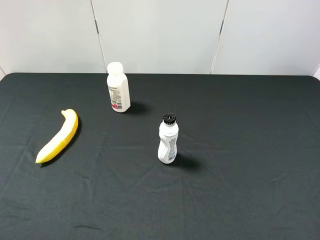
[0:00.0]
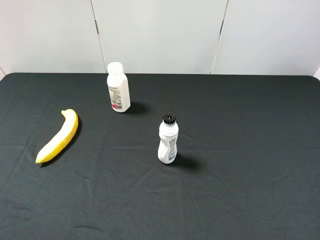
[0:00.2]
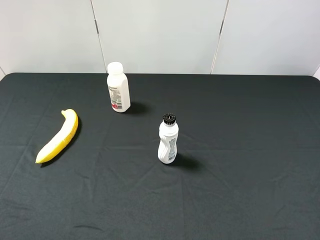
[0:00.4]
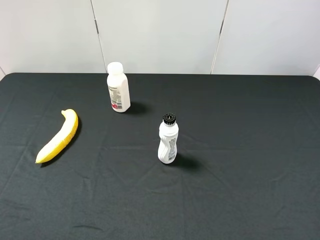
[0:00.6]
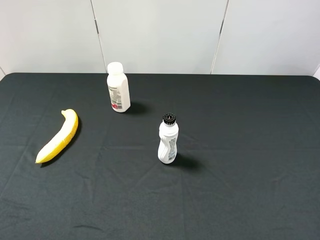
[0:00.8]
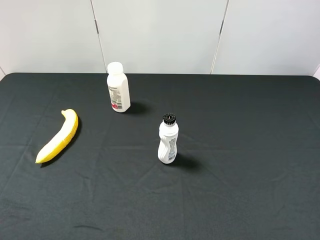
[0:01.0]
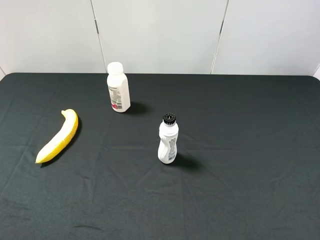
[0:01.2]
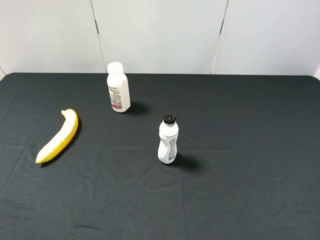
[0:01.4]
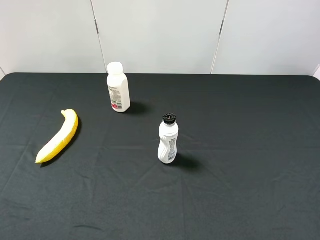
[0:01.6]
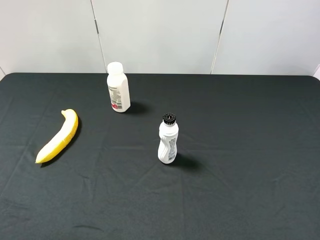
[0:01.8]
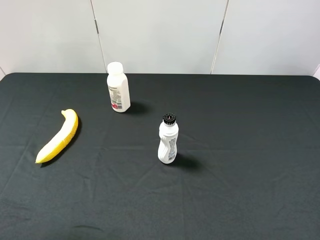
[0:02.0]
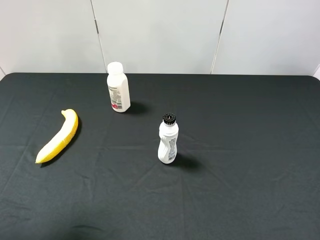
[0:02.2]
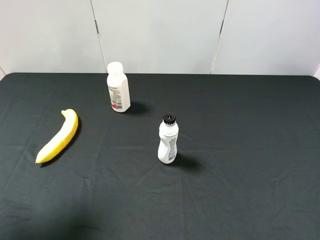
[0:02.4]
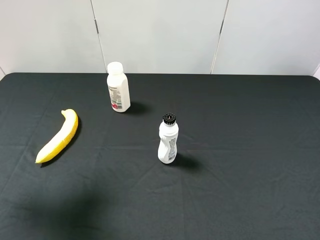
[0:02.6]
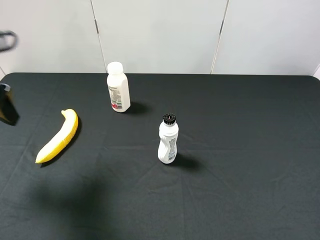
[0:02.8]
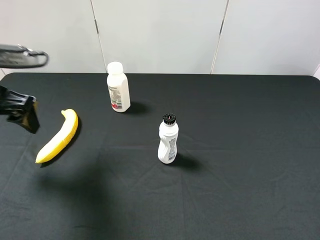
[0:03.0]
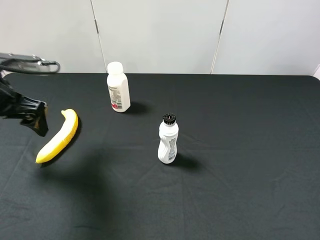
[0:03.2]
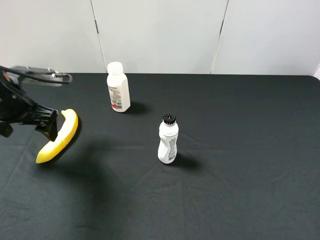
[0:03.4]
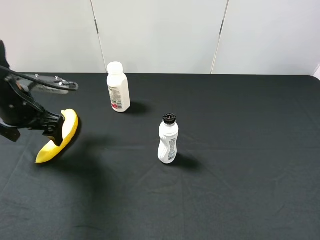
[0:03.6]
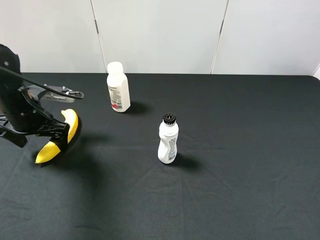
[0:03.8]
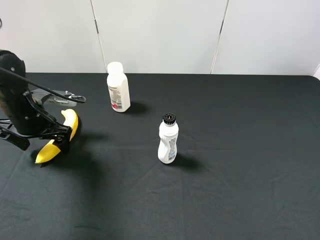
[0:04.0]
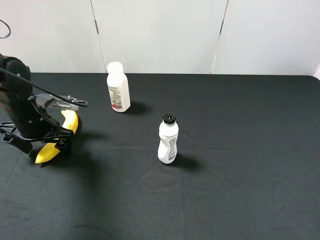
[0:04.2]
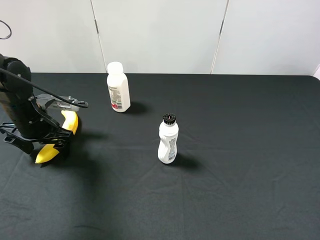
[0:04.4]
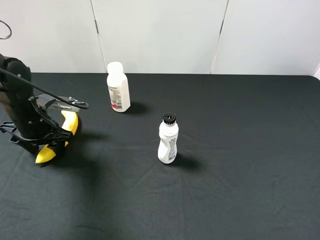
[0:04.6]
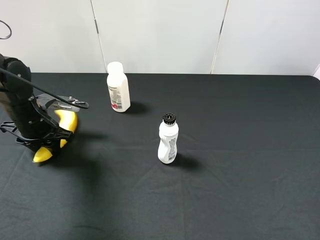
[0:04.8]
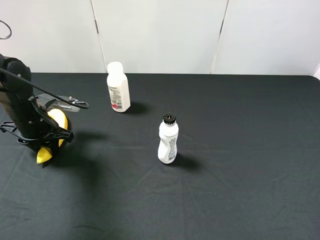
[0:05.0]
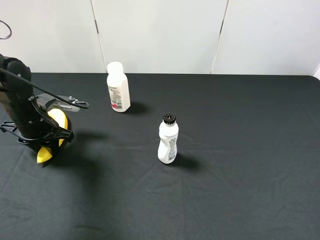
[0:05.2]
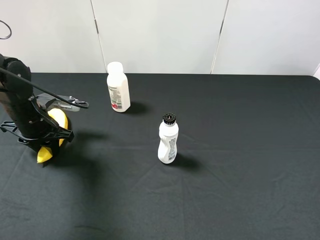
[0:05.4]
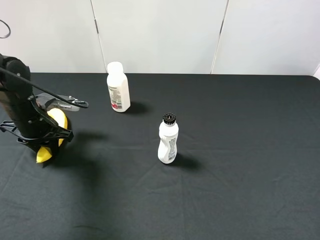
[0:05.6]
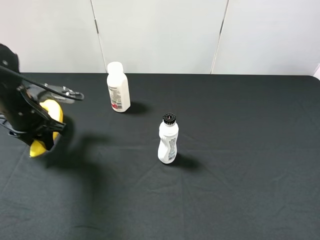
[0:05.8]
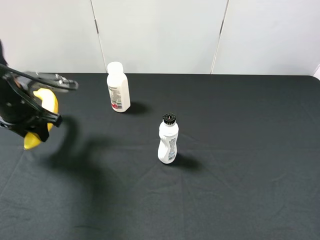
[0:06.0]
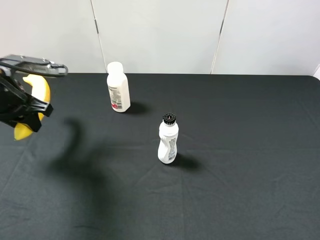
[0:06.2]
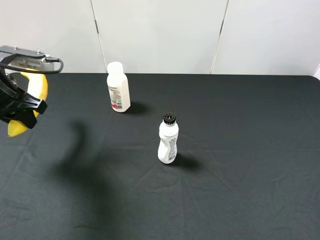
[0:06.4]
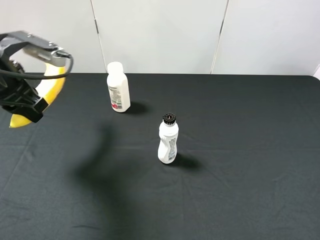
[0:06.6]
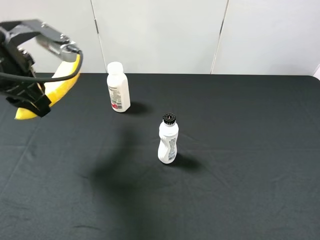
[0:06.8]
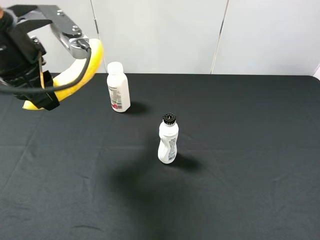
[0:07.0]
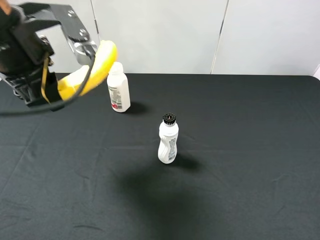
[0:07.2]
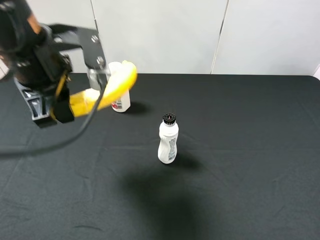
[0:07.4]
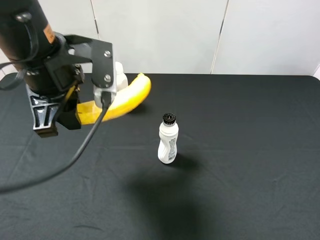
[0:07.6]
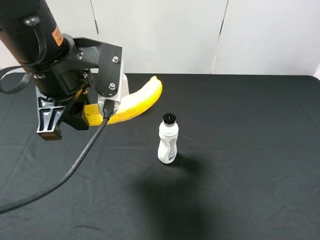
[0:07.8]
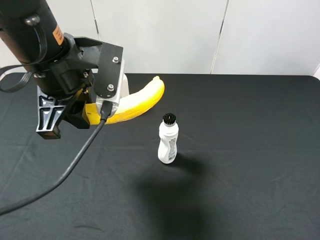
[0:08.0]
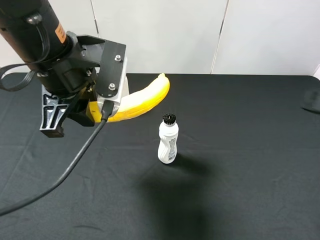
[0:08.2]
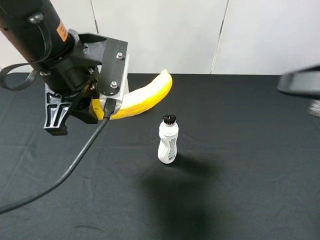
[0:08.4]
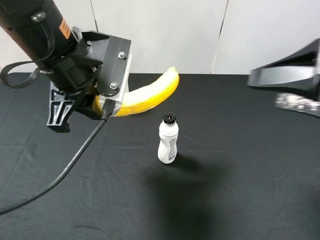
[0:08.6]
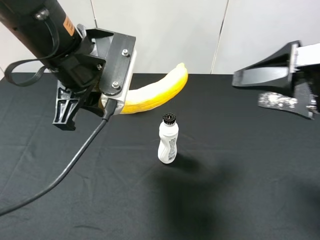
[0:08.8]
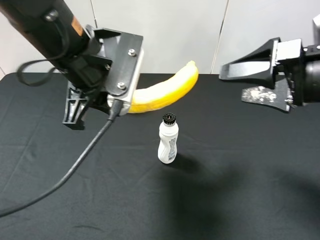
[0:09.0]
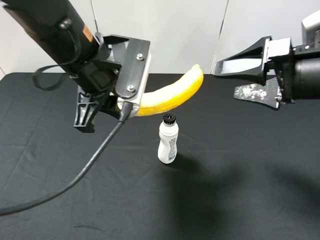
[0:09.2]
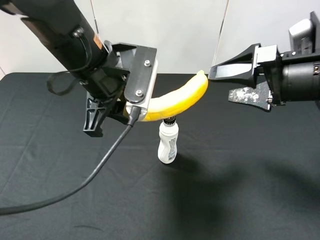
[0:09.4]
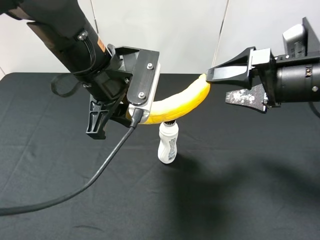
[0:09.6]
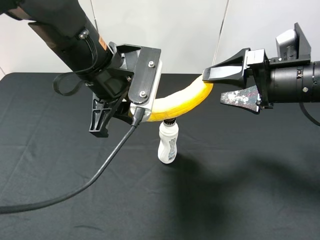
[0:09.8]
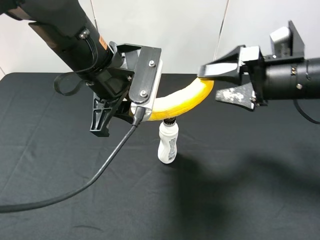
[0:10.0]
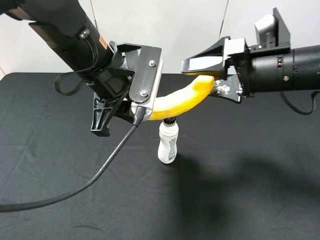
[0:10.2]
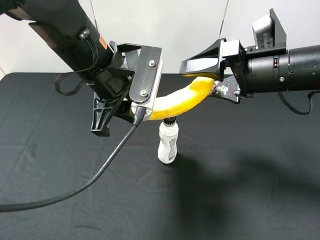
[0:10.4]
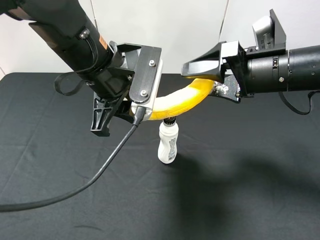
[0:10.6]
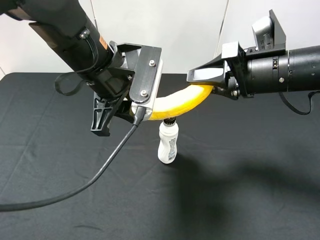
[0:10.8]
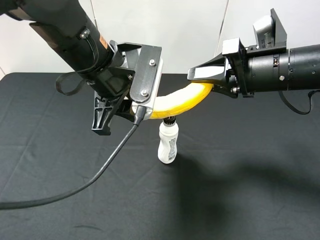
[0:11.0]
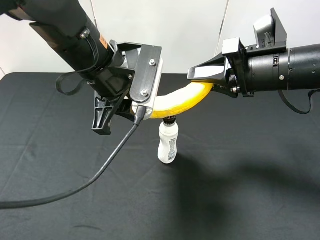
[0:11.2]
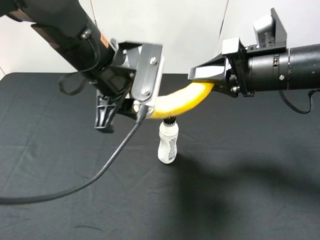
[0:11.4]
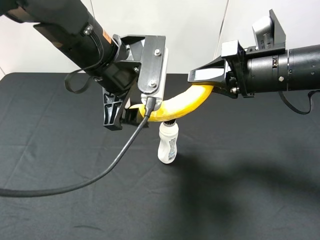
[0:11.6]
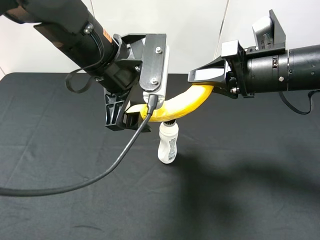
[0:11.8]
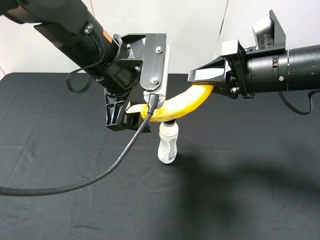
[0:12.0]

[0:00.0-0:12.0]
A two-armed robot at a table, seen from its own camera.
Task of the whole recording: use the left gripper to pick up the item and transfer it from the left gripper to the right gripper.
0:01.6 to 0:03.0: The left gripper is displaced forward by some 25 cm.
0:03.0 to 0:04.4: The left gripper shifts about 15 cm downward and forward.
0:04.4 to 0:06.0: The left gripper shifts approximately 5 cm upward, and closes up.
0:06.0 to 0:07.6: The left gripper goes roughly 20 cm to the right, upward and backward.
0:07.6 to 0:09.0: The right gripper travels forward and to the left by about 20 cm.
0:09.0 to 0:10.4: The right gripper is displaced forward by about 5 cm.
0:10.4 to 0:12.0: The left gripper opens its fingers. Meanwhile the right gripper closes its fingers.

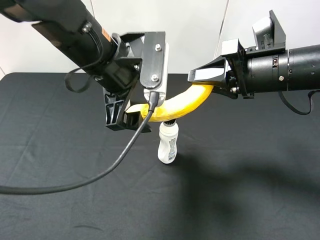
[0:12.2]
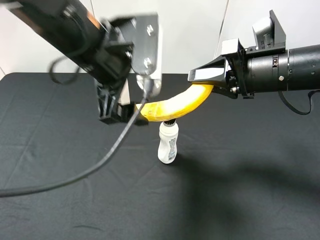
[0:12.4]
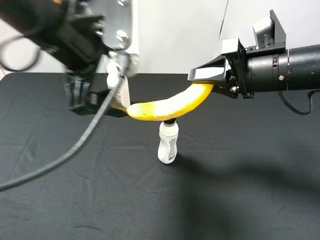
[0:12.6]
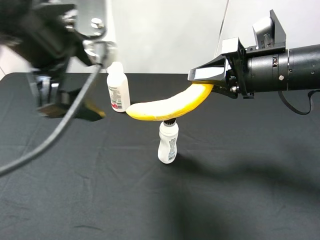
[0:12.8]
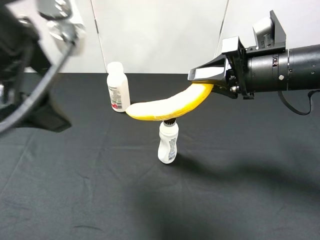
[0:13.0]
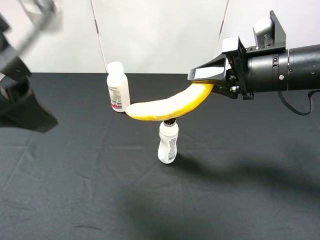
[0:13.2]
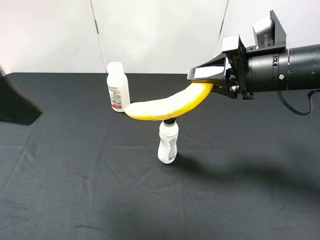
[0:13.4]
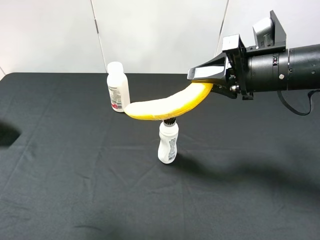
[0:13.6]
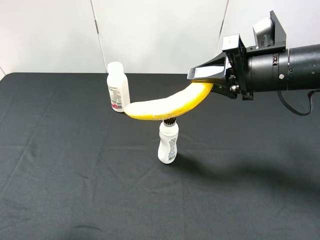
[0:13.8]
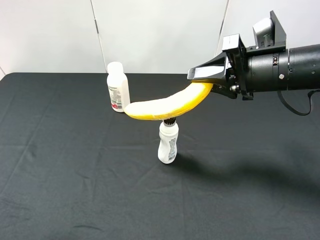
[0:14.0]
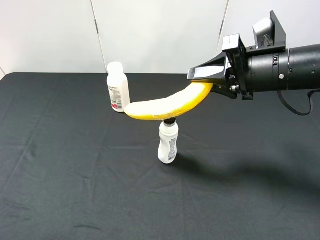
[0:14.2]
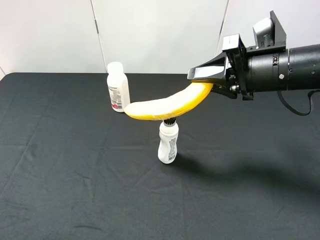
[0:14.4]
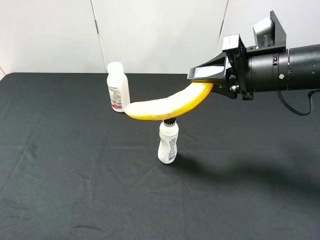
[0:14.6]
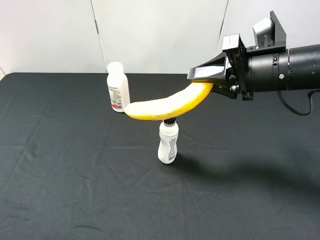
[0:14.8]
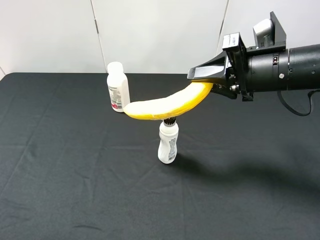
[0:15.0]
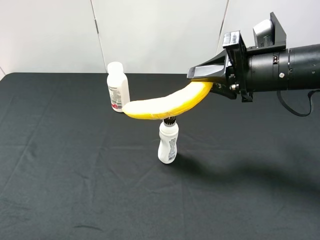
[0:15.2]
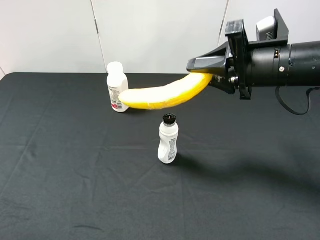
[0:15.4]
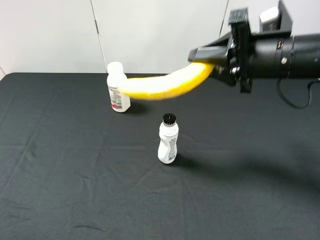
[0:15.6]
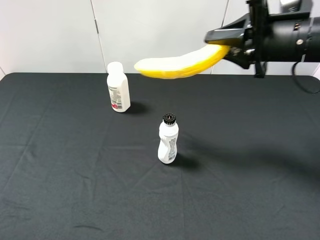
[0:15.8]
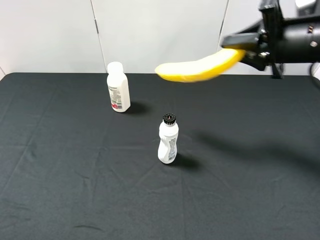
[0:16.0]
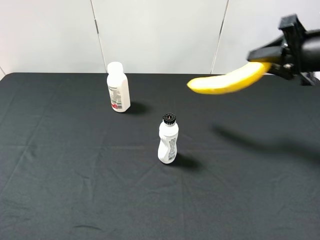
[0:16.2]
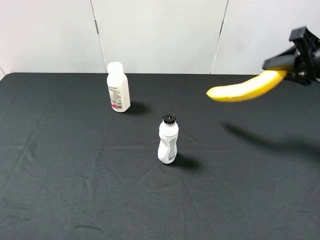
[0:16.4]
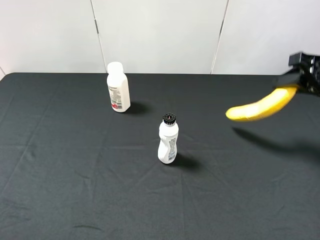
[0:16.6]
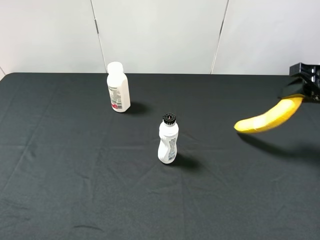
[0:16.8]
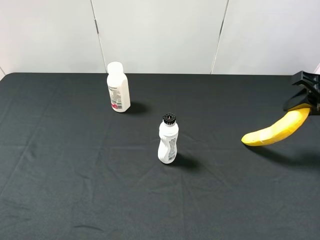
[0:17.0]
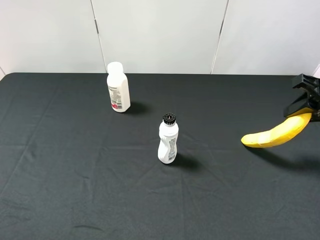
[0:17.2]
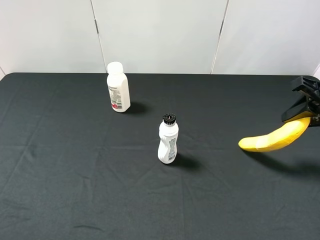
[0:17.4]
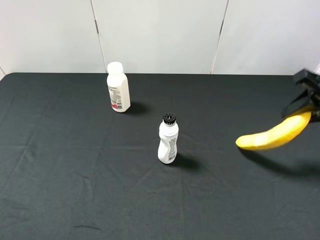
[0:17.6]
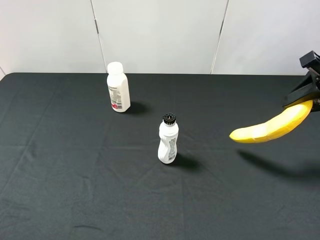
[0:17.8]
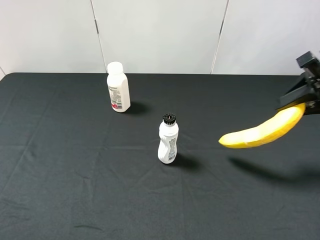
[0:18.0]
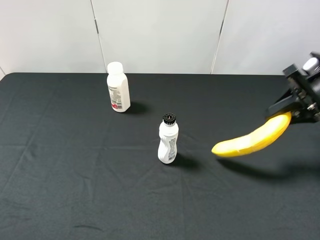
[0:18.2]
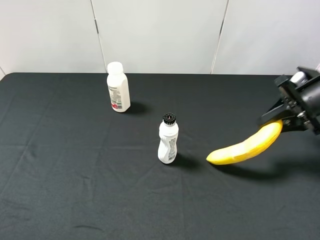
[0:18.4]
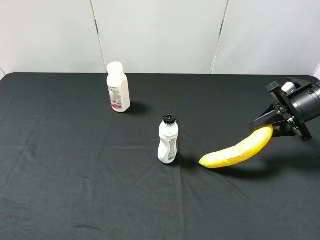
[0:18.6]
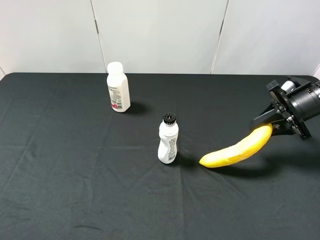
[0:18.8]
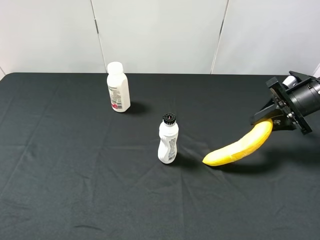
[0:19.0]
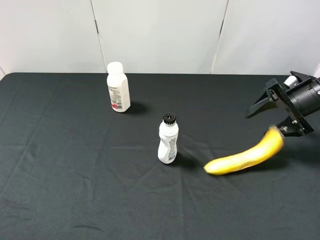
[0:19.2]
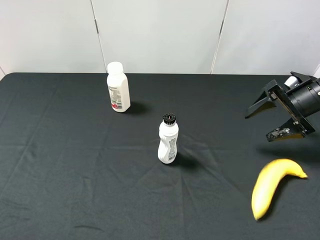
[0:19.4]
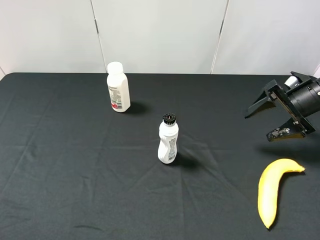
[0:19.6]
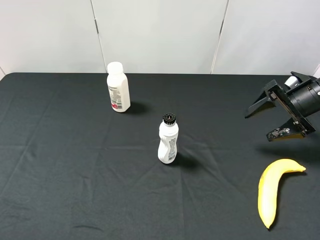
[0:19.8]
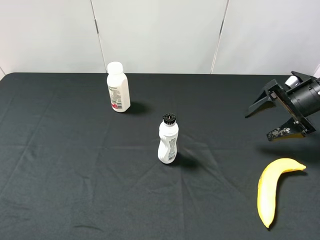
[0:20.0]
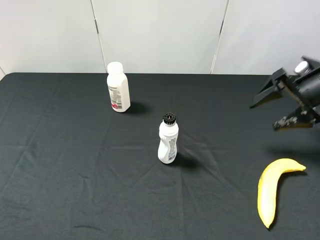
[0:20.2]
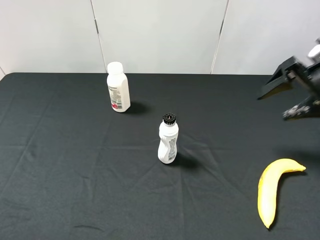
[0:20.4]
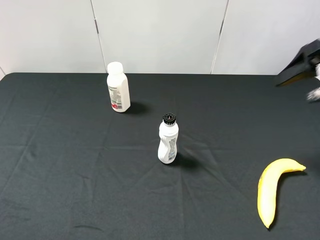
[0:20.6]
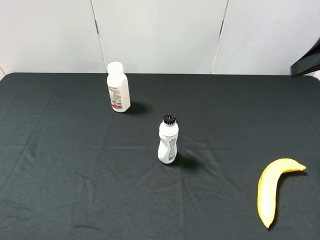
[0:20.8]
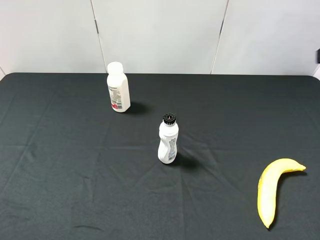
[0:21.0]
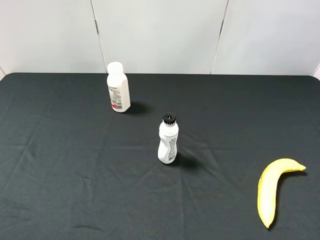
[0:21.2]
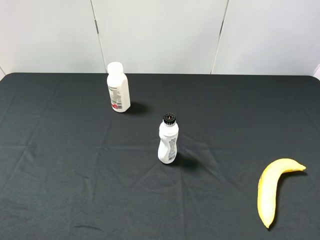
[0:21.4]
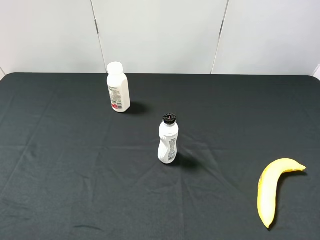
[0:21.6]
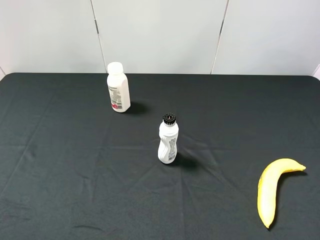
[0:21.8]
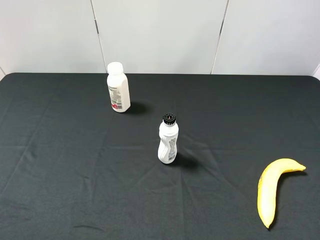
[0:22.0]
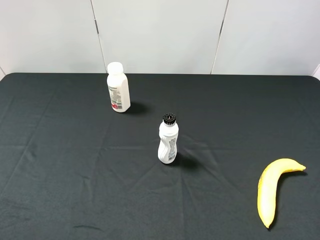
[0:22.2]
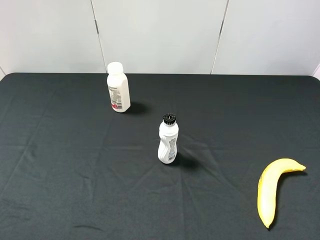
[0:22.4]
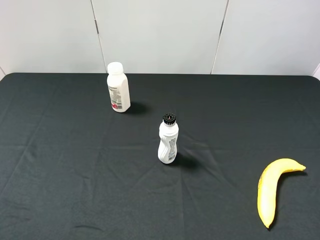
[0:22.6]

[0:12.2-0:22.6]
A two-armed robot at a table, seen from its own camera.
Task of the whole recording: use the left gripper to pick up the item and transfer it from the left gripper to the right gripper.
0:12.2 to 0:13.6: The left gripper moves to the left, backward and upward, about 20 cm.
0:13.6 to 0:15.2: The left gripper goes roughly 15 cm backward, to the left and downward.
0:15.2 to 0:16.6: The right gripper shifts roughly 15 cm to the right.
0:18.2 to 0:19.6: The right gripper shifts by approximately 5 cm, and opens its fingers.
0:19.6 to 0:21.2: The right gripper is displaced upward and backward by some 25 cm.
